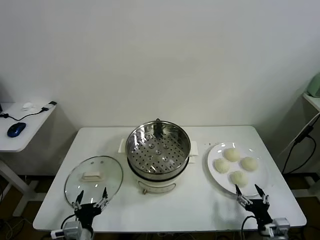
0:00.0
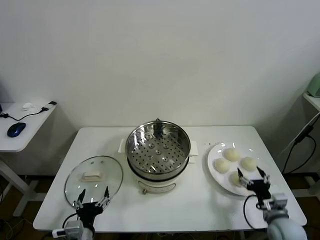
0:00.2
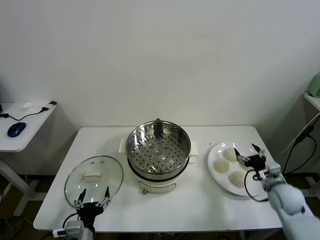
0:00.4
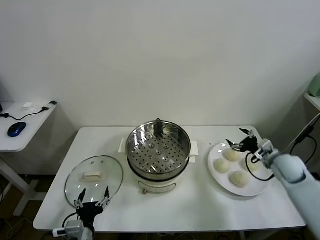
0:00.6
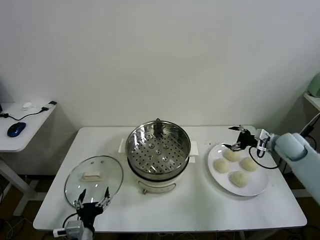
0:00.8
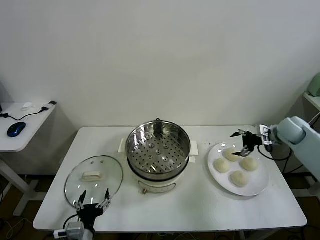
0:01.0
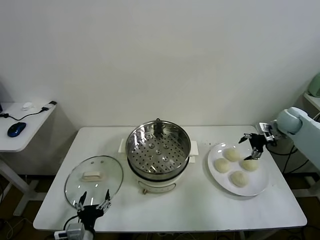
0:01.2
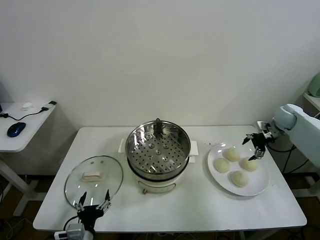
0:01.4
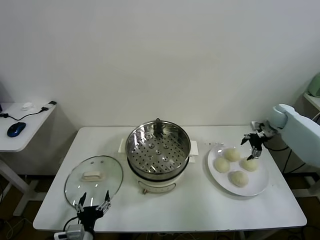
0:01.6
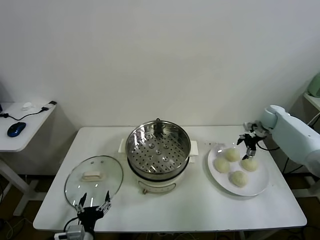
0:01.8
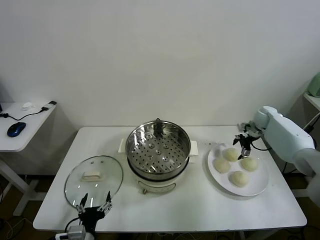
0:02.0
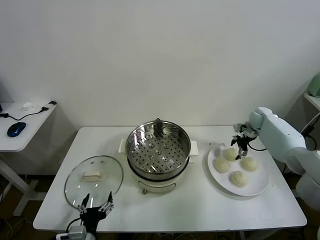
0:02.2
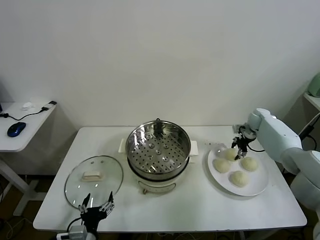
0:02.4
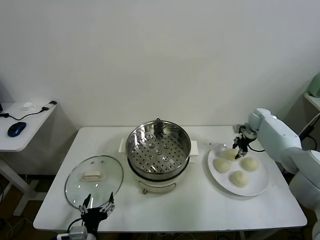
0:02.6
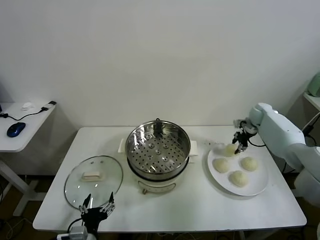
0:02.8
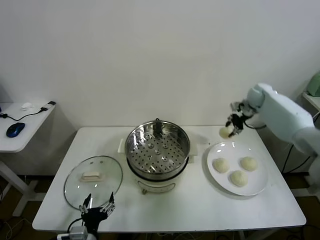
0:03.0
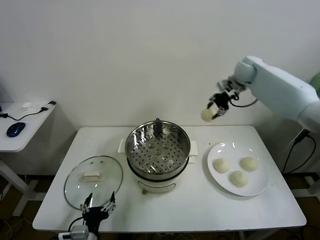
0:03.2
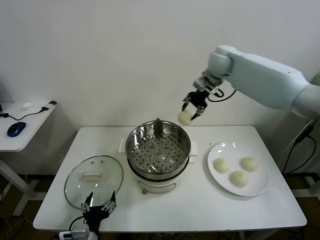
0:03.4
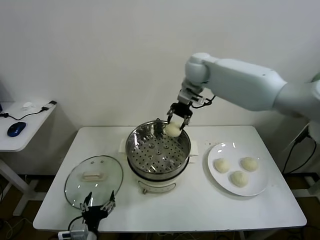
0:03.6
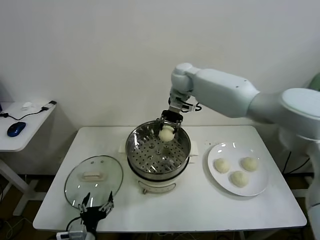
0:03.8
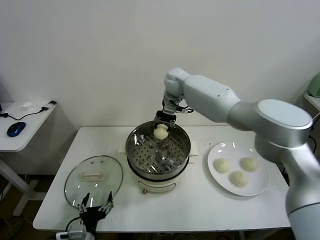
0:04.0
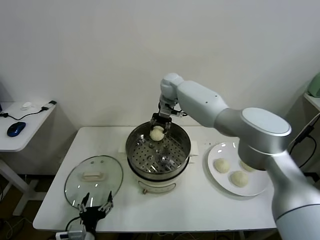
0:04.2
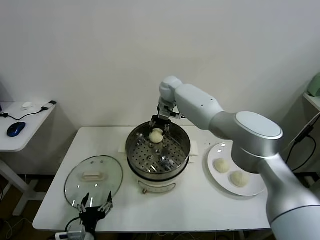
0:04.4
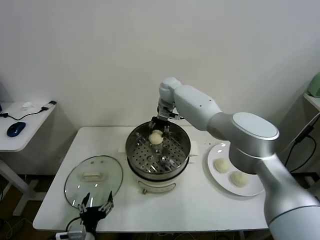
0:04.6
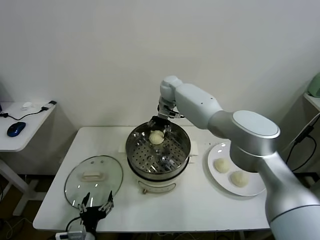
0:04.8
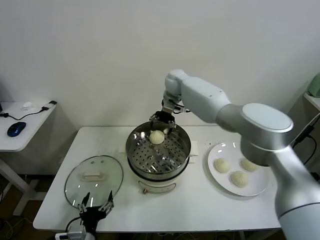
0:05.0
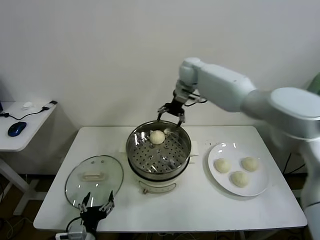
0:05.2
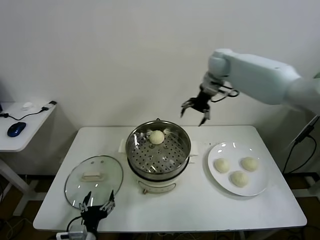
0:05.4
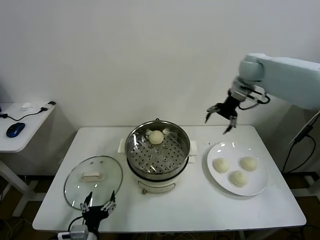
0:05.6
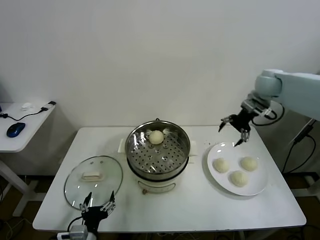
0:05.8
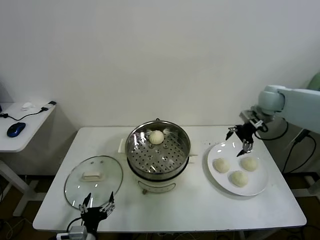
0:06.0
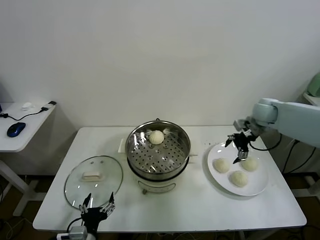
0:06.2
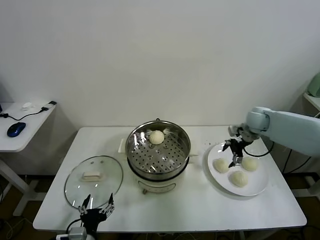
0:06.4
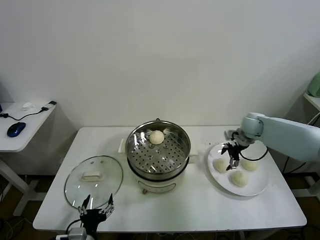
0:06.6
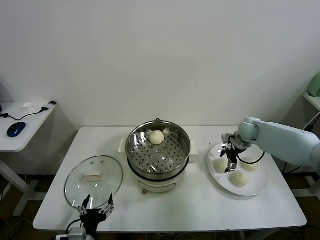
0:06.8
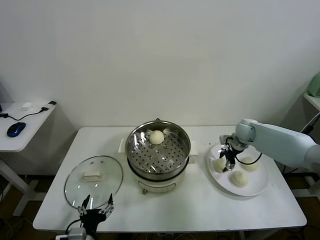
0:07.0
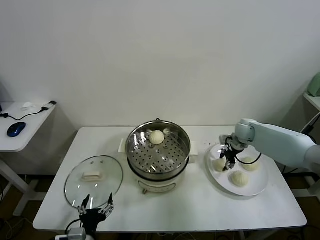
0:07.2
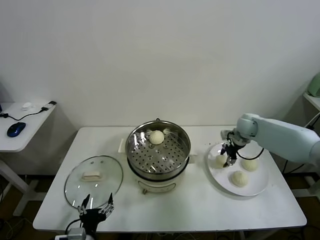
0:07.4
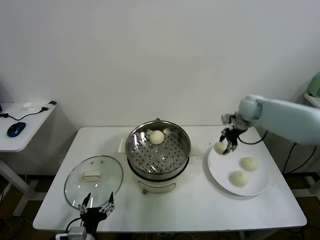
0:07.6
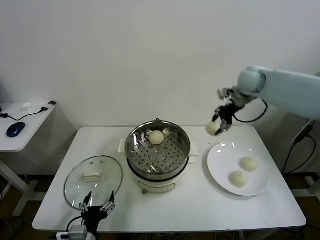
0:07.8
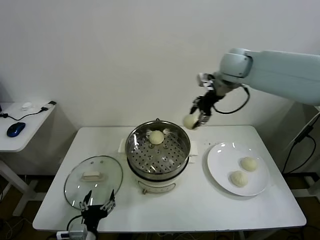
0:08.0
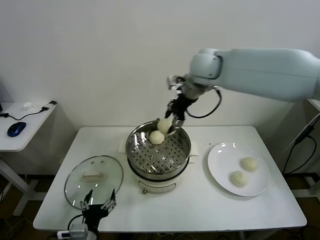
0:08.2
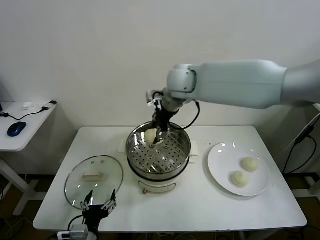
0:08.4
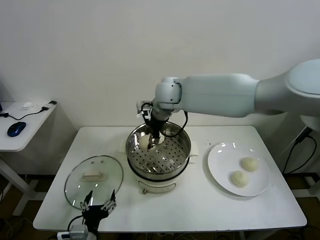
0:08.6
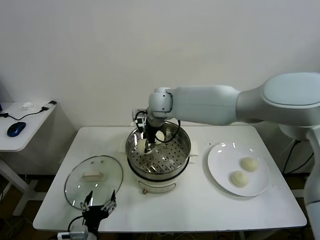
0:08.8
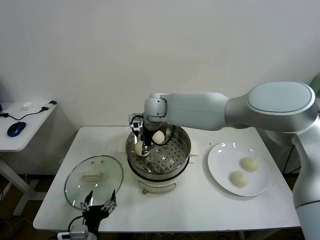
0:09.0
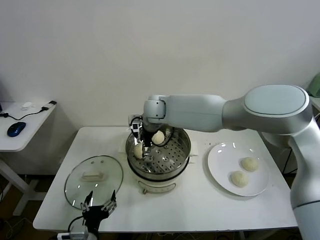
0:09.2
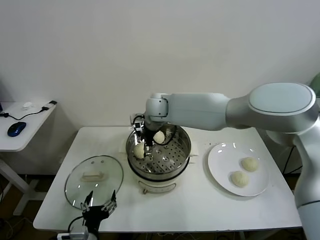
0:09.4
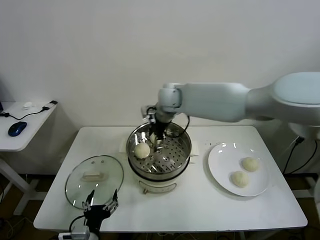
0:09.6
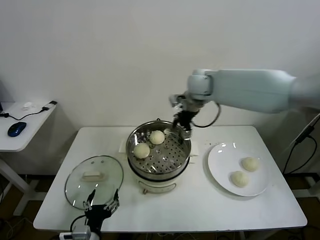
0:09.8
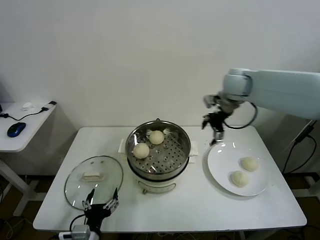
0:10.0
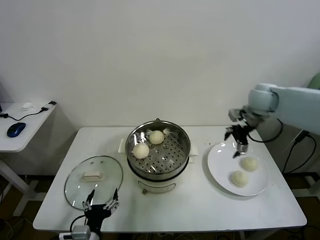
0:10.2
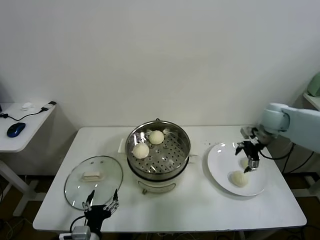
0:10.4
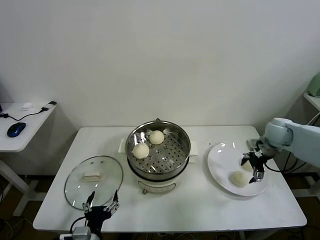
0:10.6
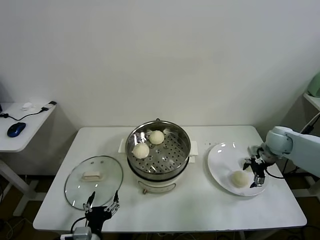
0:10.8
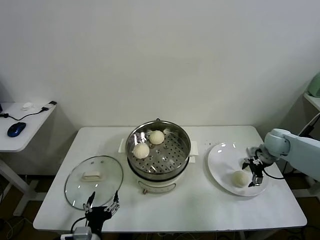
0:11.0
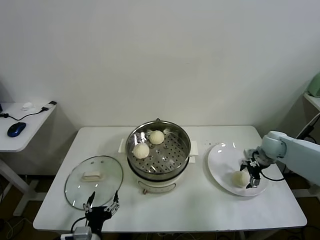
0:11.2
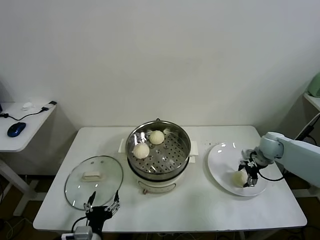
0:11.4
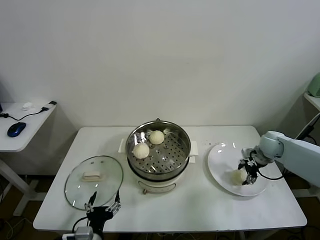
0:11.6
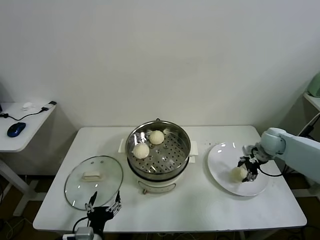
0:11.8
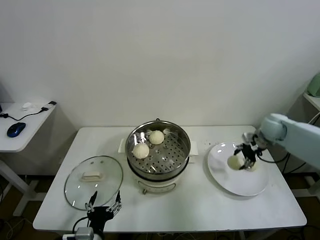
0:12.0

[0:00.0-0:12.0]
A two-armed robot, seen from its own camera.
Task of the whole recording: take steamed baozi put them in steamer.
Step, 0:00.0 to 0:02.4: Grasp the baozi in the plate with right gripper.
Step, 0:02.6 to 0:05.0: Place the baozi on the steamer with right gripper.
Step, 0:05.2 to 0:07.2: Grasp the baozi in the plate with right gripper.
Step, 0:07.4 to 0:09.4: Place the baozi on the steamer with right gripper.
Step, 0:09.6 to 0:11.6: Grasp the baozi in the plate with right gripper.
0:01.6 to 0:03.0: The right gripper travels upward, to the left and forward by some 20 cm, and closes.
0:03.0 to 0:04.4: The right gripper goes roughly 30 cm to the left.
0:04.4 to 0:06.0: The right gripper heads to the right, covering about 35 cm, and opens up.
0:06.0 to 0:07.6: The right gripper is displaced to the left by some 5 cm, reaches some 15 cm downward, then returns, and closes its fingers.
0:07.6 to 0:09.0: The right gripper moves to the left, some 35 cm.
0:09.0 to 0:10.4: The right gripper goes approximately 40 cm to the right, and opens up.
0:10.4 to 0:12.0: The right gripper travels downward and back again, roughly 10 cm each way, and closes its fingers.

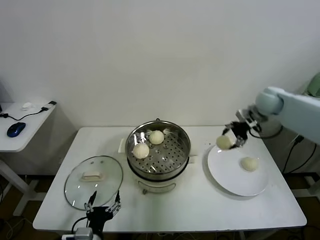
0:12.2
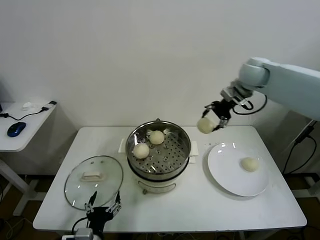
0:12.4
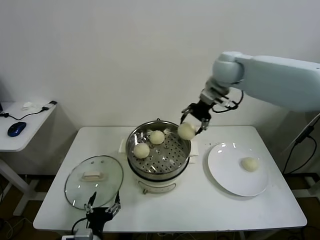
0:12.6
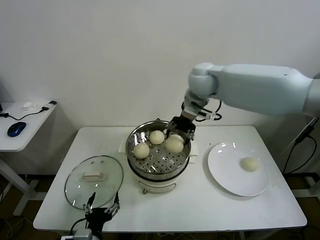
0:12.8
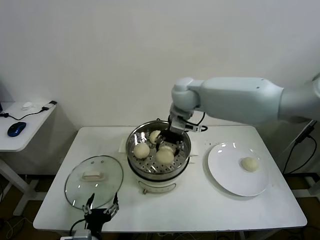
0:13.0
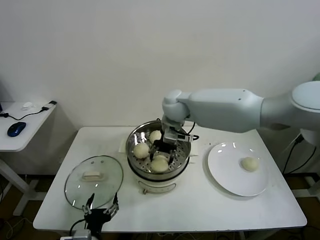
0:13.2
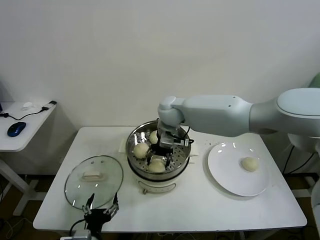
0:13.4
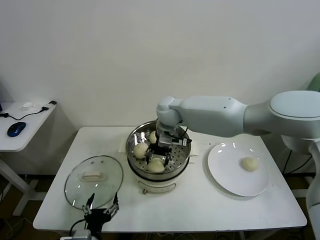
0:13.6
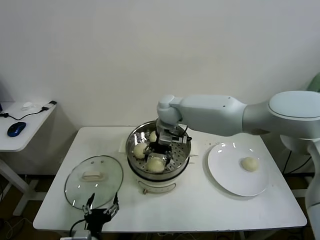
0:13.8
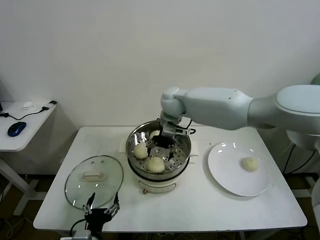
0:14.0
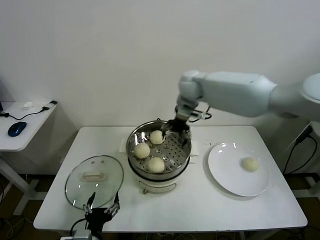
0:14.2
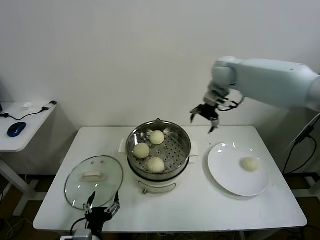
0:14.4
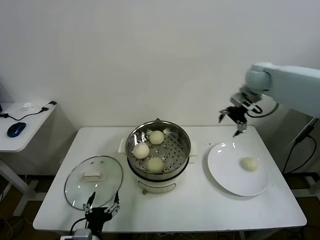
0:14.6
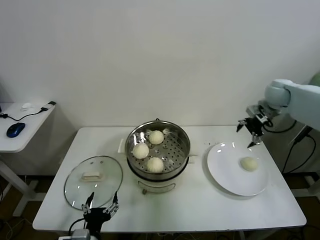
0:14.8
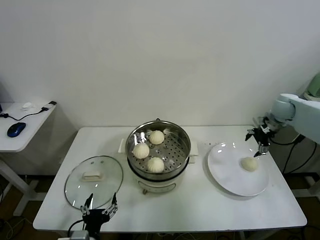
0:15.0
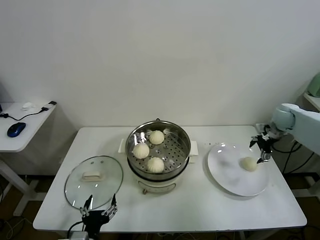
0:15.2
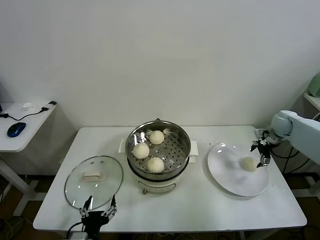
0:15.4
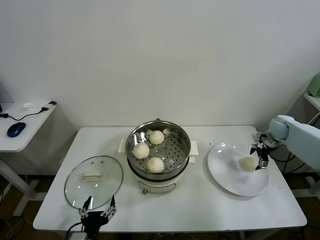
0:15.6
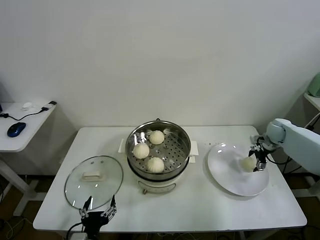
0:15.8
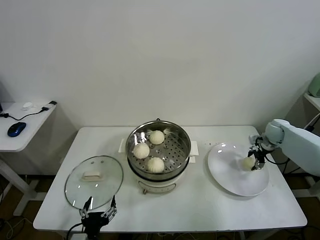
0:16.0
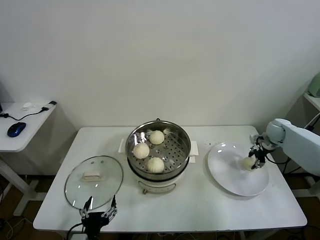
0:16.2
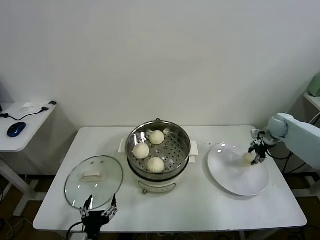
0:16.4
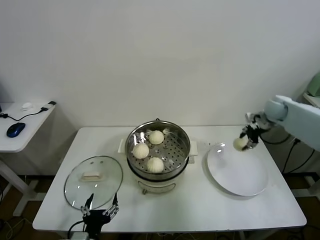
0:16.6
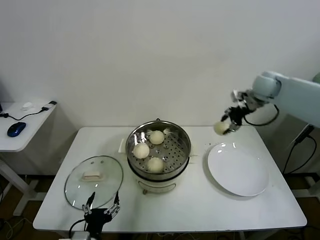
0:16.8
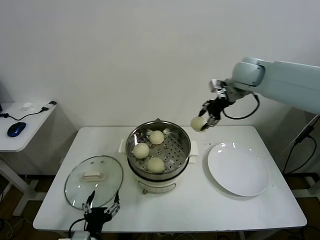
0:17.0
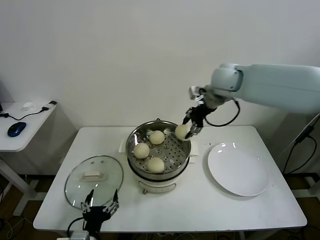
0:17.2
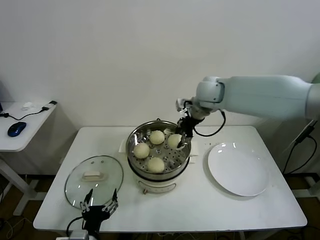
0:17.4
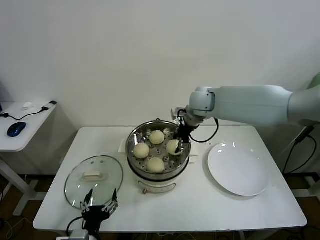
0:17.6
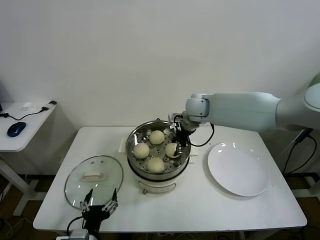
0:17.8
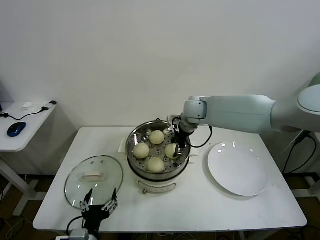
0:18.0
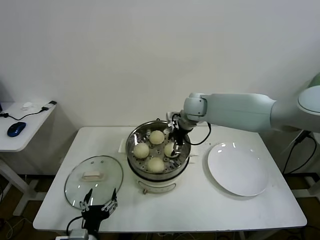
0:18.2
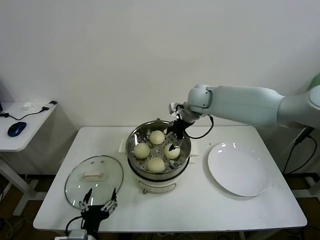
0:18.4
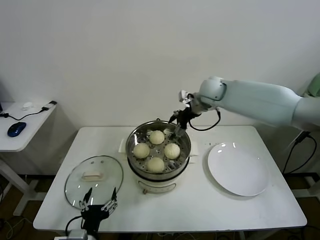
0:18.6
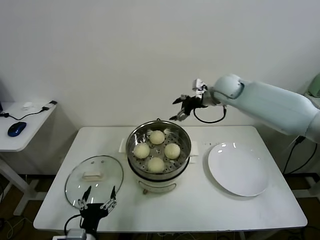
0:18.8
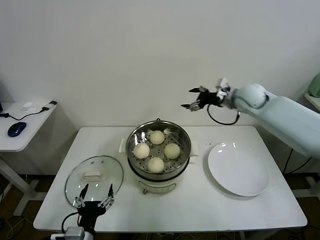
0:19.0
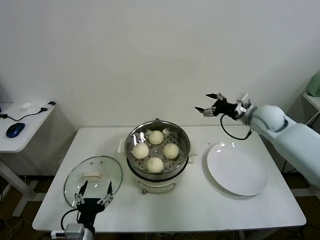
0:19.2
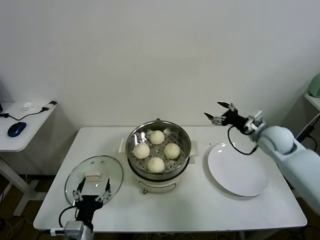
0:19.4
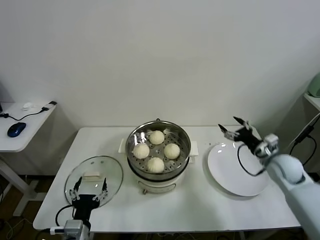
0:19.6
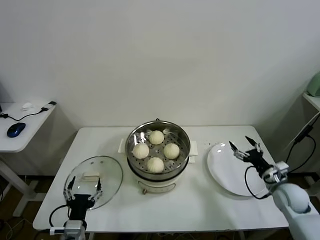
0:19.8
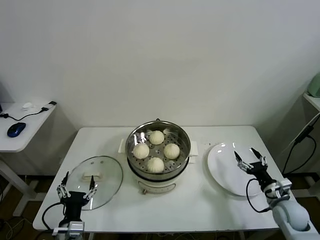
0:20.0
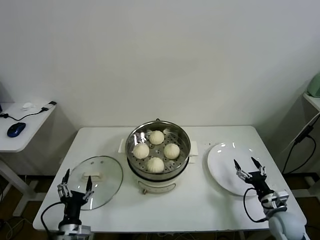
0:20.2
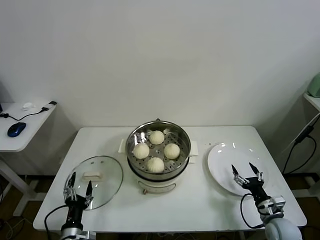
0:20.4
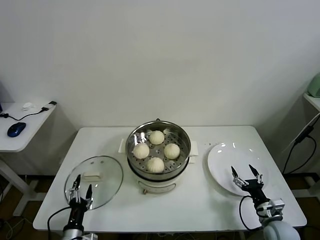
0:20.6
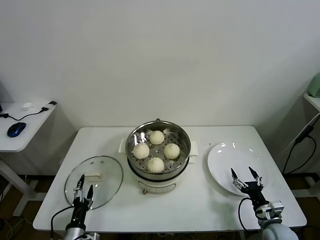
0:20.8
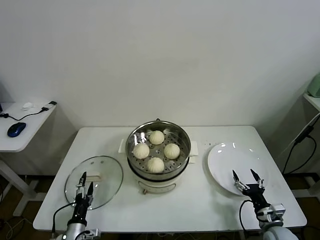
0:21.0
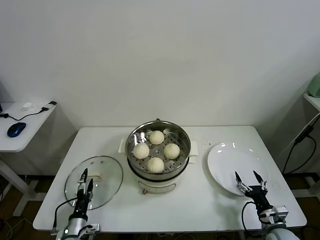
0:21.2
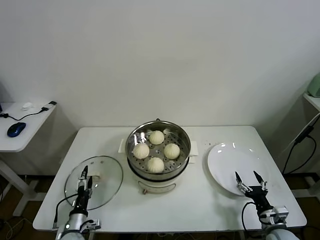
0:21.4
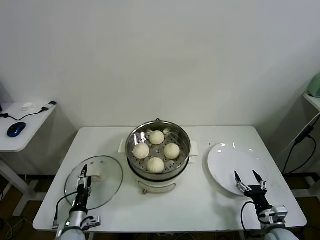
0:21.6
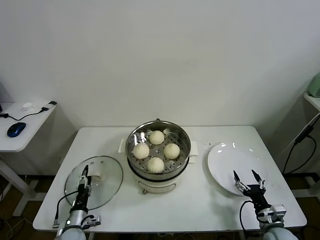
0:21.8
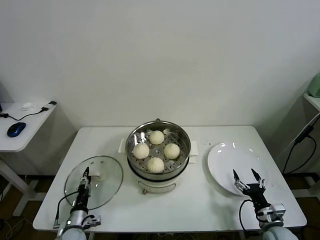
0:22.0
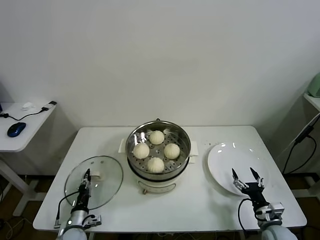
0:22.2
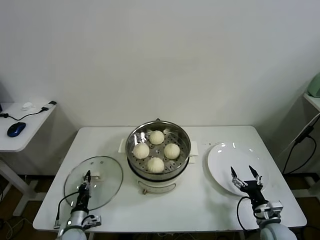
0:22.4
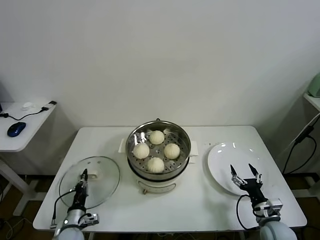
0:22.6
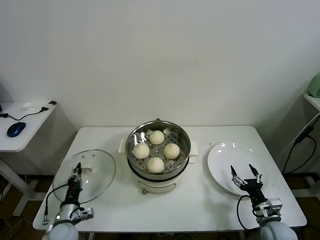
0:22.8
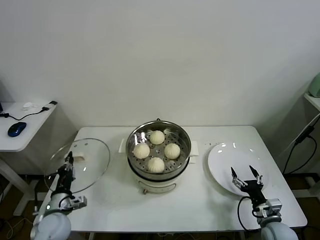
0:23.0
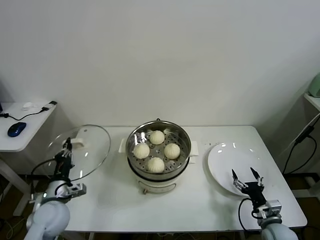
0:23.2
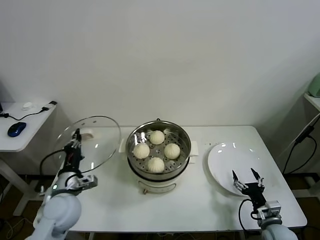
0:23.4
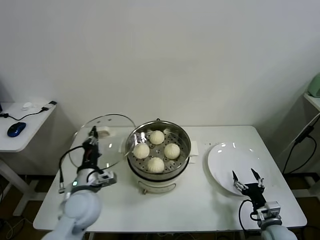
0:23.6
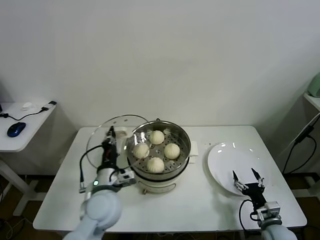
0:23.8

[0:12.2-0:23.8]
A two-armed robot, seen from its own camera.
Task of the whole recording: take steamed baozi put them in steamer.
Step, 0:12.2 to 0:13.8: Place the baozi on the steamer with right gripper.
Step, 0:14.2 to 0:16.0: Grasp the baozi in the plate with right gripper.
Step, 0:16.4 to 0:18.2: Place the baozi on the steamer with right gripper.
Step, 0:18.4 to 0:22.4: Grasp the pot lid with left gripper.
0:12.2 to 0:13.6: The right gripper moves to the left, about 35 cm.
0:13.6 to 0:15.0: The right gripper moves to the right, about 40 cm, and opens up.
0:15.0 to 0:16.6: The right gripper reaches some 10 cm downward, then returns, and closes its fingers.
0:16.6 to 0:18.0: The right gripper goes roughly 30 cm to the left.
0:18.0 to 0:19.4: The right gripper is displaced to the right by roughly 25 cm, and opens its fingers.
0:19.4 to 0:21.0: The left gripper heads downward and to the left, covering approximately 15 cm. Meanwhile the right gripper heads downward and backward, covering about 35 cm.
0:21.0 to 0:22.4: The left gripper is displaced forward by approximately 5 cm, and closes its fingers.
0:22.4 to 0:23.8: The left gripper goes roughly 30 cm upward and to the right.
